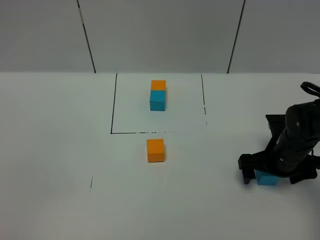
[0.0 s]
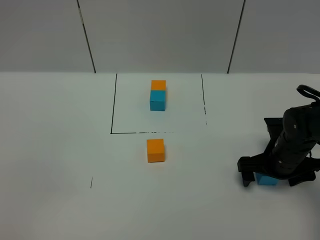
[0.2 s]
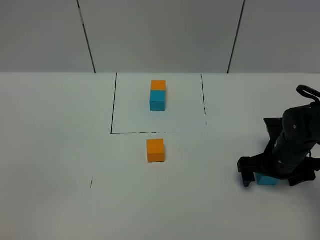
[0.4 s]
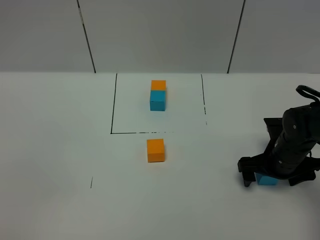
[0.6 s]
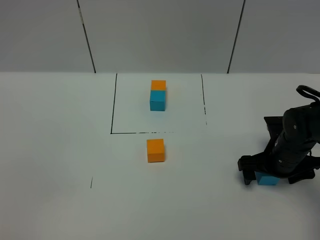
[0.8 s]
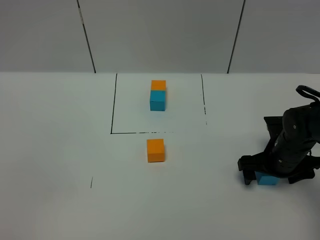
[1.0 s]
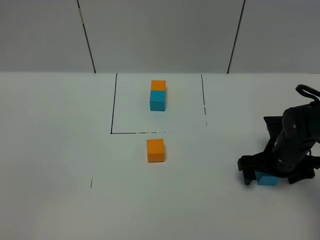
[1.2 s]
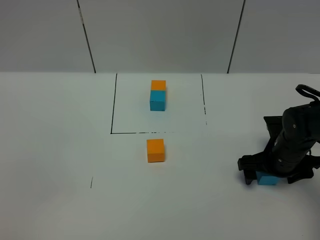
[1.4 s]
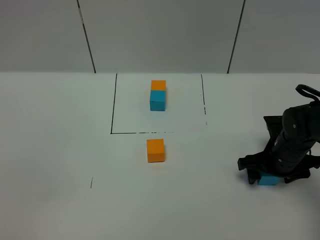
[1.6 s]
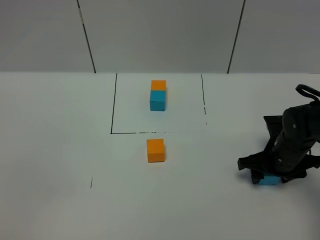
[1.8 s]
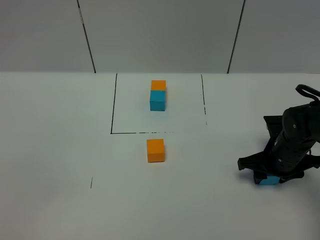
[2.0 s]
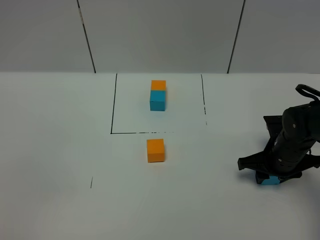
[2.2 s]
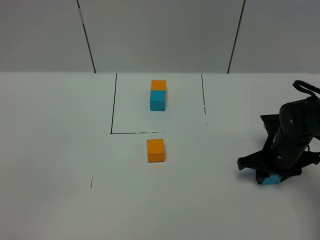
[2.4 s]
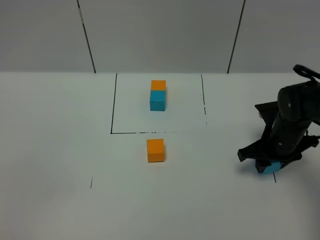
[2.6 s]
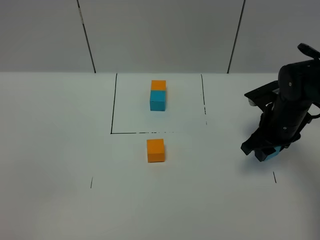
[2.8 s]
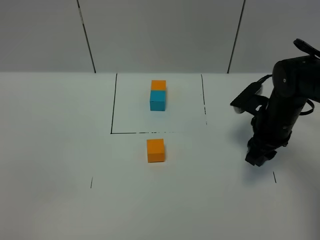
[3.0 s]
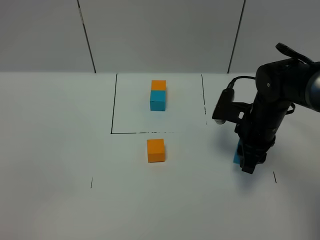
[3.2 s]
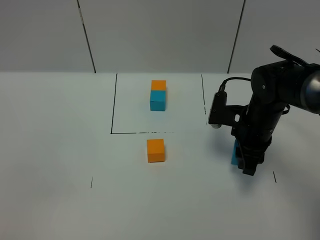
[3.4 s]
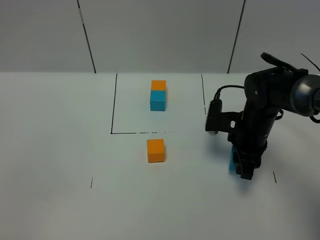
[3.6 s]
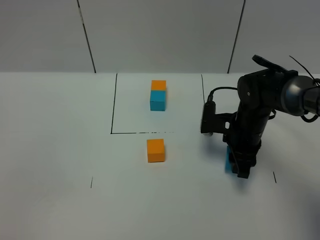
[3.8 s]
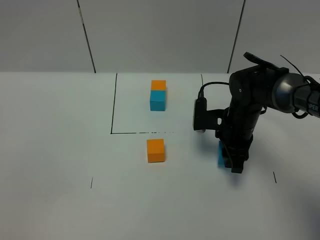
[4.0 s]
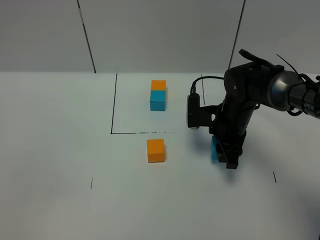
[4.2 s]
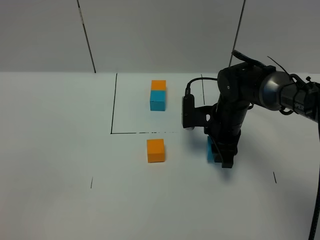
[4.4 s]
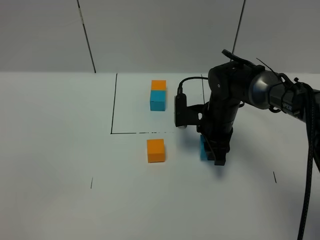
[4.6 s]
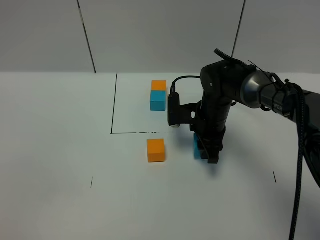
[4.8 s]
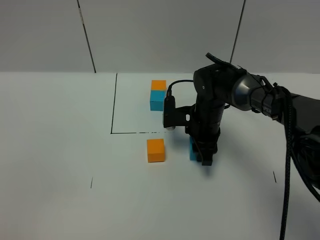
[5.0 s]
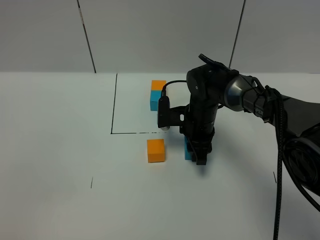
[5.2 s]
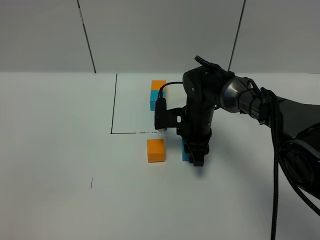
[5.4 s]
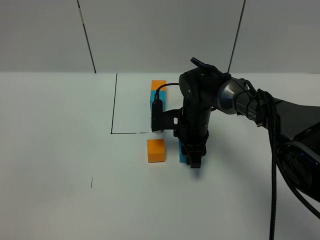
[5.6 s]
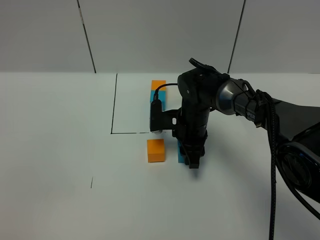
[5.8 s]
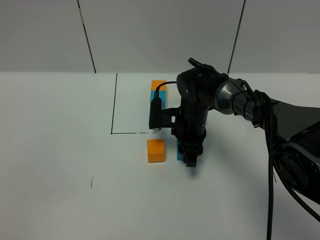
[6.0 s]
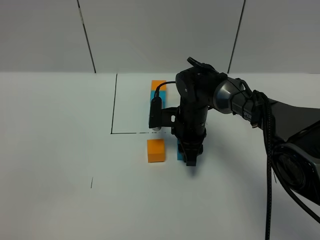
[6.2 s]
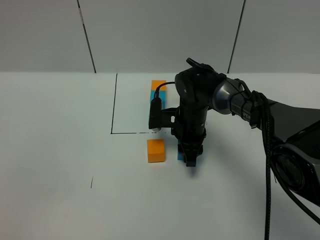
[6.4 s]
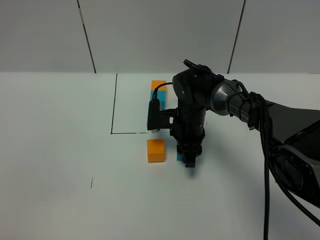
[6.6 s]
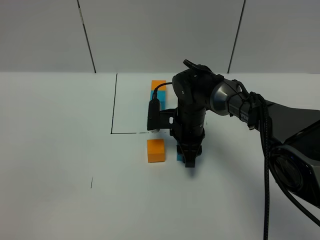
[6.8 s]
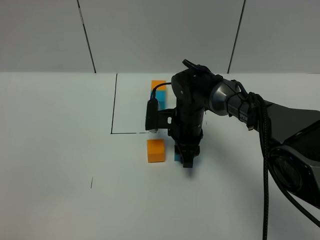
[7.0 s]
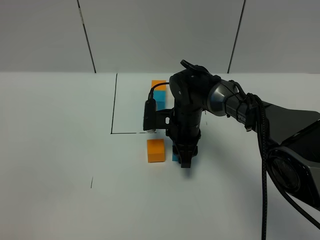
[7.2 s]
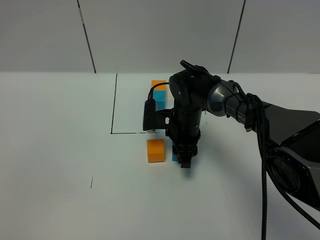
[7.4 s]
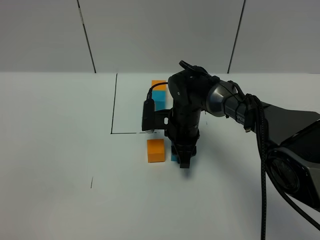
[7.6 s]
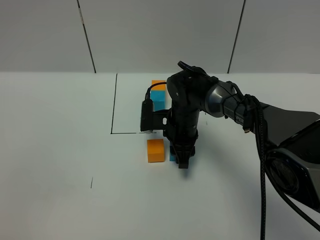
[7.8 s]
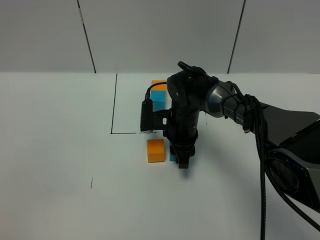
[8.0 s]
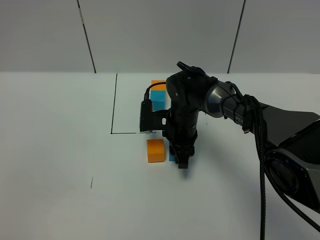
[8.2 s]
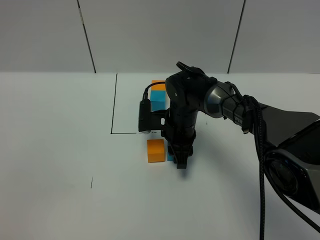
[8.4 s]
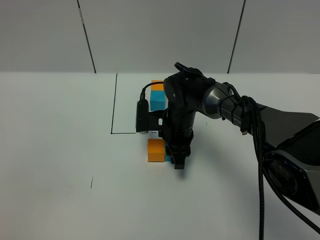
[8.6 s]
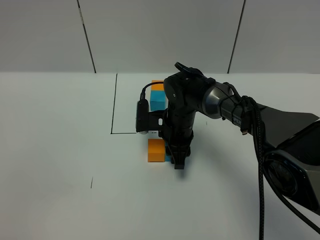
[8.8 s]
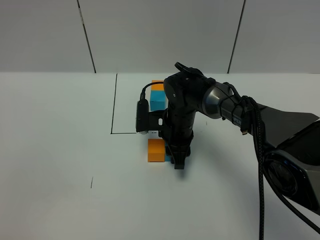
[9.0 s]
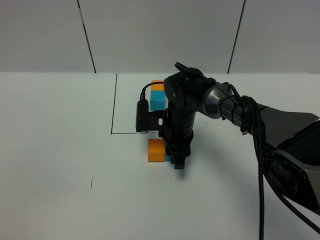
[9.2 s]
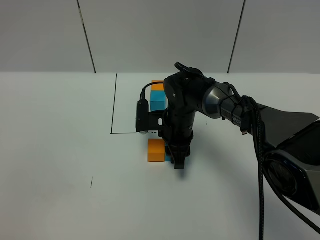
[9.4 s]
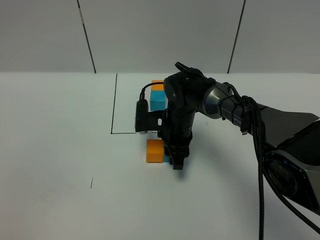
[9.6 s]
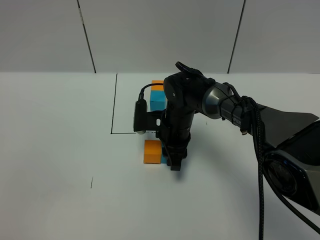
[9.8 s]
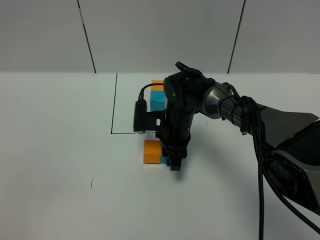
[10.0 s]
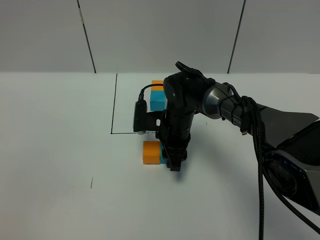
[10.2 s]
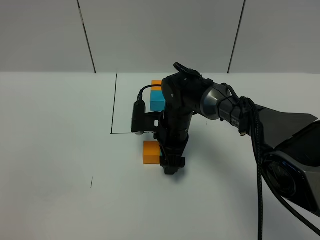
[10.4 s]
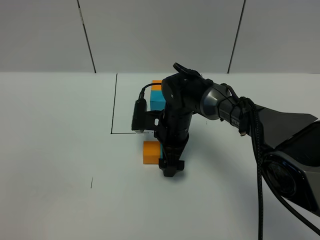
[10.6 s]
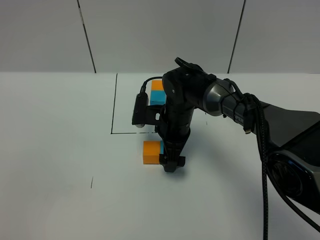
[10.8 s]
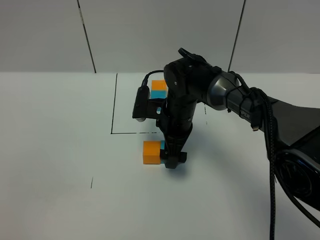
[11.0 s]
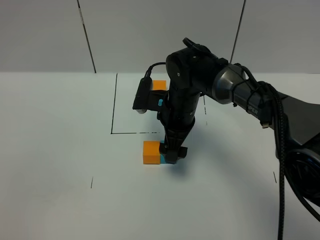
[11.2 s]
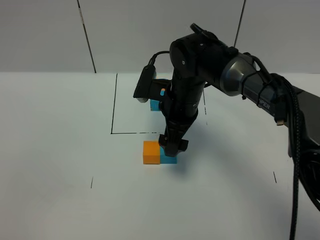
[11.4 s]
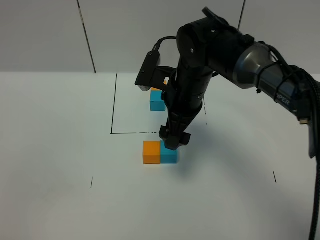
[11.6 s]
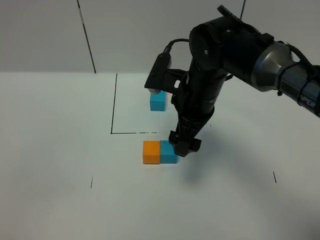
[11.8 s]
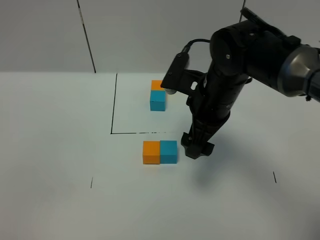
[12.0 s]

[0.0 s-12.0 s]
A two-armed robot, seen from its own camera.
Task of the whole recording: According to the building block template in front, assemble the scattered blocks together.
Step, 0.0 to 11.6 s: Put the blue cube on the right of the orange cube.
0.0 to 1.6 s: The right gripper closes.
1.6 to 3.0 s: The right gripper goes approximately 5 cm upward, and closes up.
3.0 to 4.4 s: The right gripper moves to the left, approximately 10 cm.
4.4 to 6.0 s: The right gripper travels to the left by some 5 cm.
6.0 to 7.6 s: The grippers move only a little.
7.6 to 9.0 s: Both grippers stay about where they are.
9.0 to 10.4 s: The right gripper opens its fingers.
10.4 to 12.0 s: The right gripper heads upward, to the right and backward, covering some 15 cm, and opens its fingers.

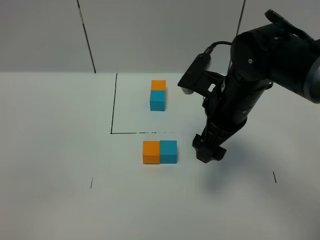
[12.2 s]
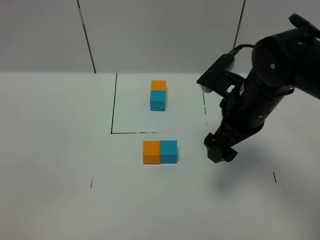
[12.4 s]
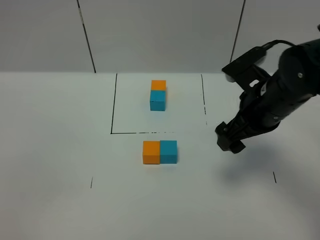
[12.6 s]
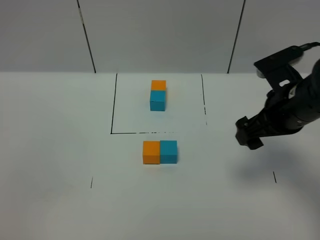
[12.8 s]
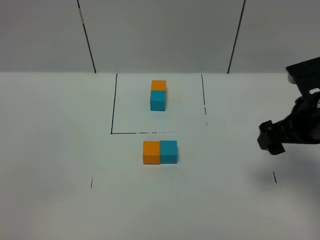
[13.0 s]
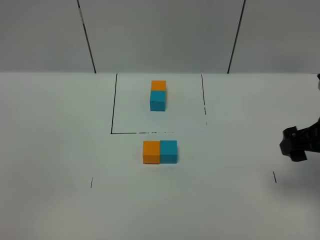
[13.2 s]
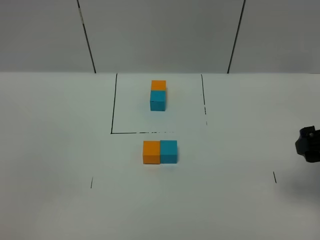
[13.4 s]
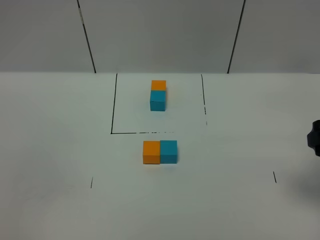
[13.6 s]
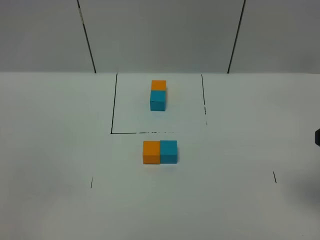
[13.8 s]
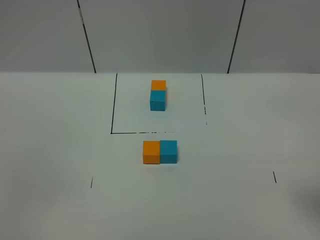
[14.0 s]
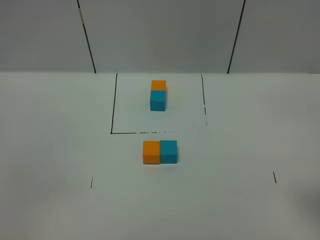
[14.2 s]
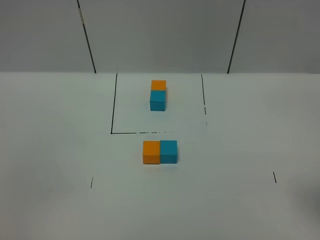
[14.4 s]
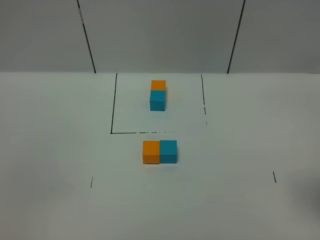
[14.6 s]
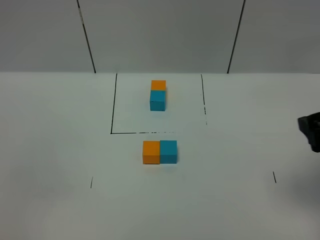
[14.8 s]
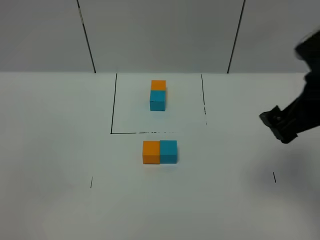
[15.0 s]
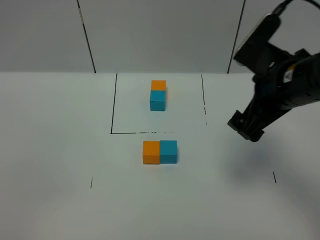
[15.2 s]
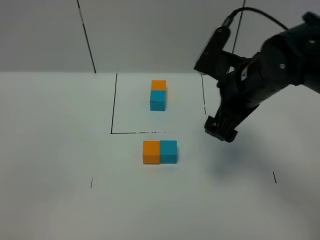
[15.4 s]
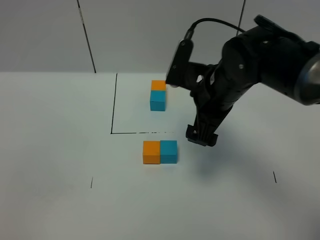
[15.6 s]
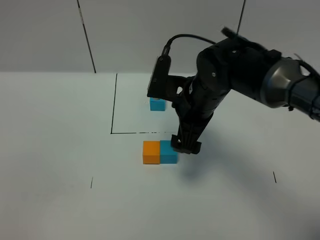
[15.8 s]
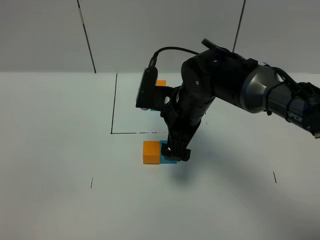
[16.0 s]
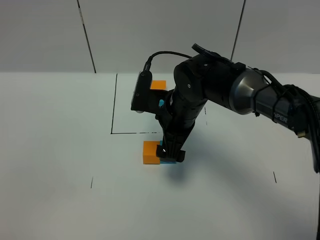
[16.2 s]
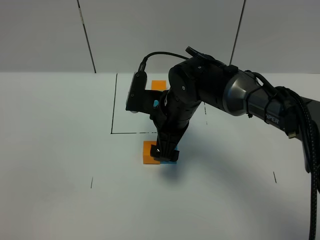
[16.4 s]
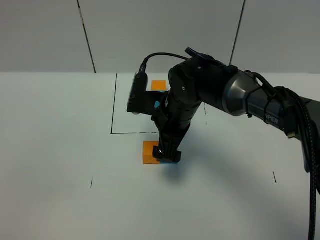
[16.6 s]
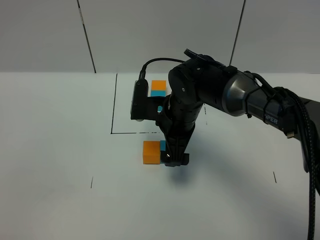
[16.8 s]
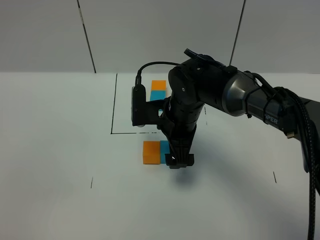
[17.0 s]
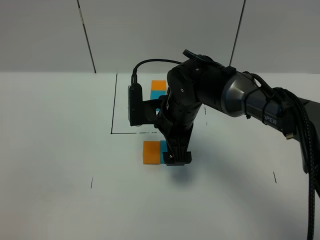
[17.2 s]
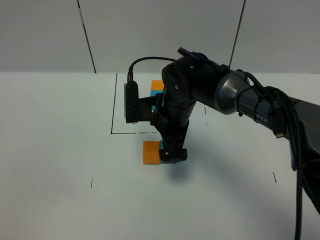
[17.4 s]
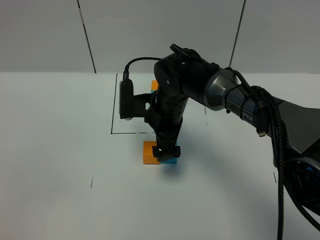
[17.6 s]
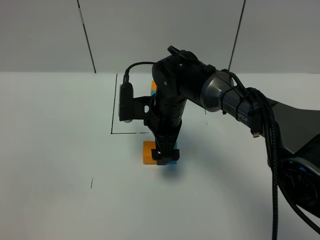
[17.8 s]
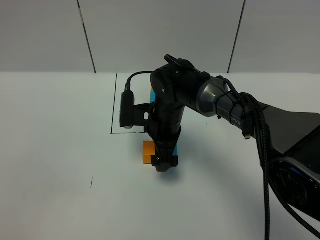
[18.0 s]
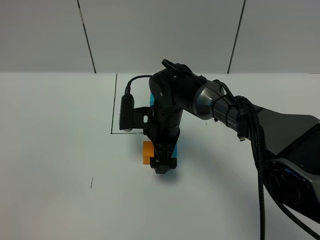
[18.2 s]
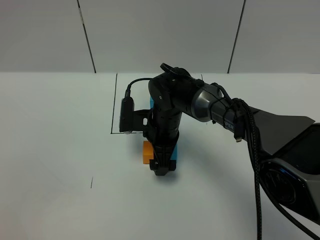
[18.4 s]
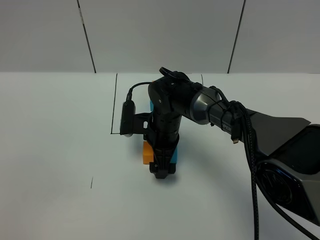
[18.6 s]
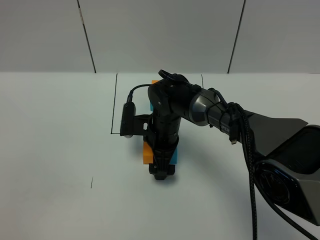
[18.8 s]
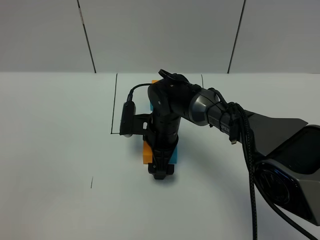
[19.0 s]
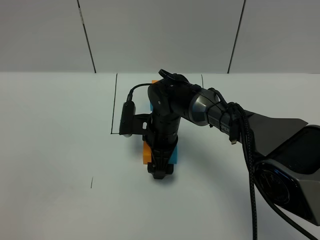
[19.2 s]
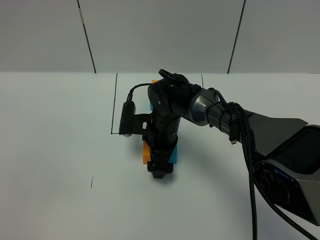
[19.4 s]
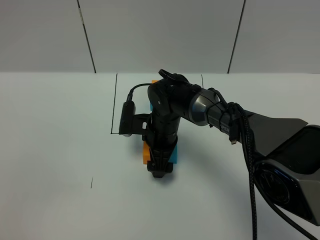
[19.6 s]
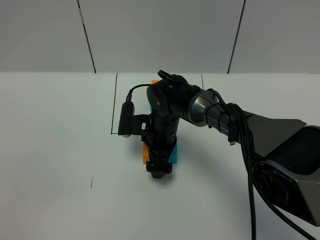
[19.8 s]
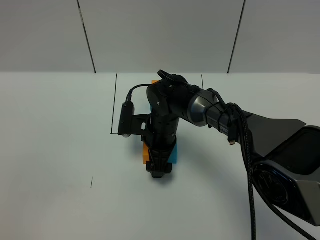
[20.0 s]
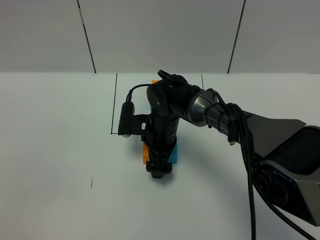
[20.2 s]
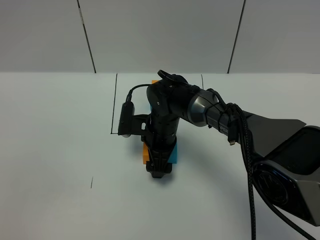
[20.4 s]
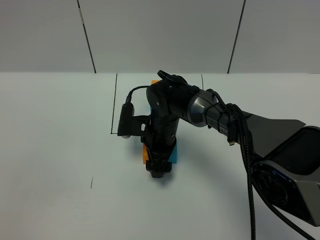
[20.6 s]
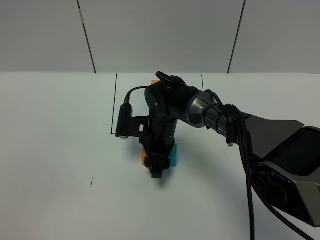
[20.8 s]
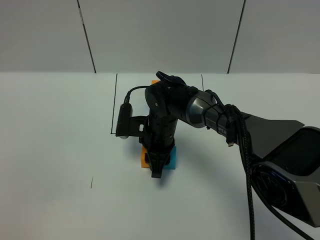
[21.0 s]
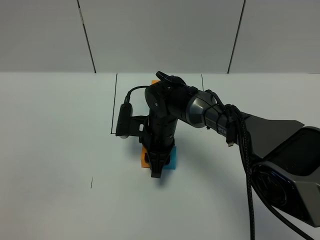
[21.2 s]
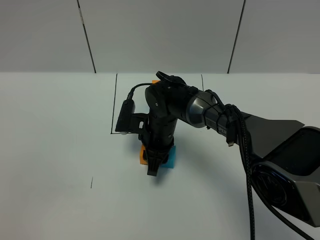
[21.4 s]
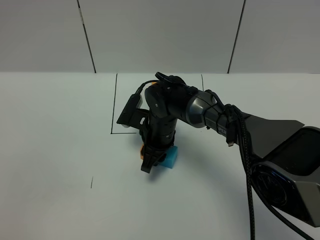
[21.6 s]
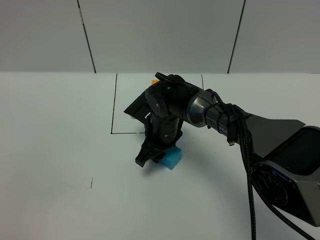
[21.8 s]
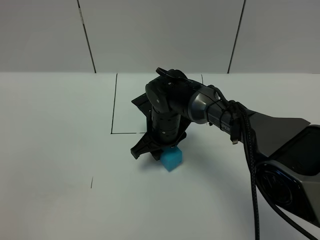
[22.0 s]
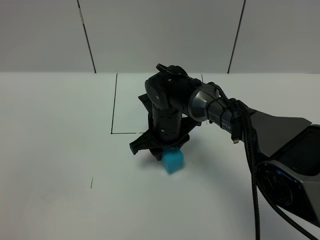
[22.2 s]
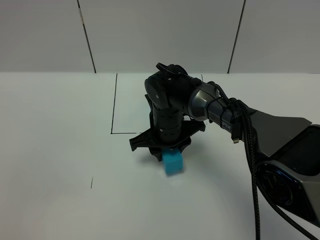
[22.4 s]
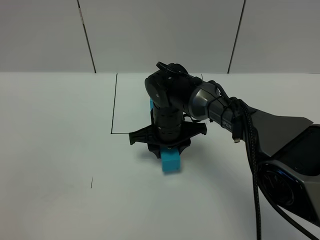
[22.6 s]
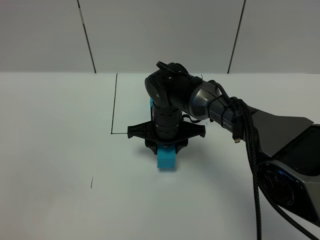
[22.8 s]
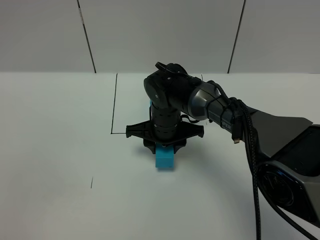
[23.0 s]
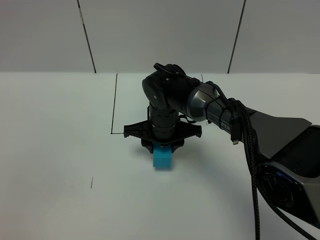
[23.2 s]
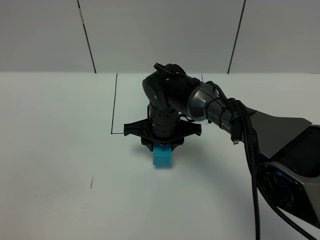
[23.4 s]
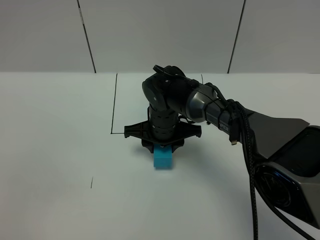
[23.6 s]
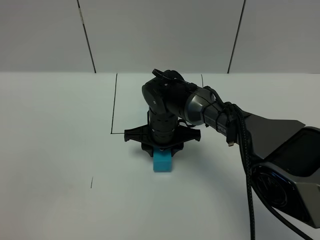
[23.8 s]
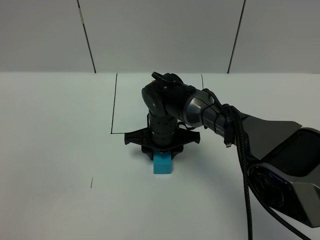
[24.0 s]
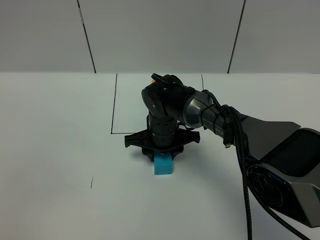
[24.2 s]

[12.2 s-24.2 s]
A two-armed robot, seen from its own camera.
Task of the whole recording: According to the building block template in front, assemble the scattered blocks together.
12.2 to 13.8 s: The right gripper shifts some 20 cm to the right and backward.
13.8 to 15.2 s: The right gripper travels to the left and forward by roughly 15 cm.
15.2 to 16.6 s: The right gripper travels to the left, downward and forward by some 20 cm.
16.6 to 18.2 s: The right gripper shifts by about 5 cm.
18.2 to 19.8 s: There are only small adjustments of the grippers.
19.8 to 21.2 s: The right gripper closes its fingers.
22.6 to 24.2 s: There are only small adjustments of the grippers.
